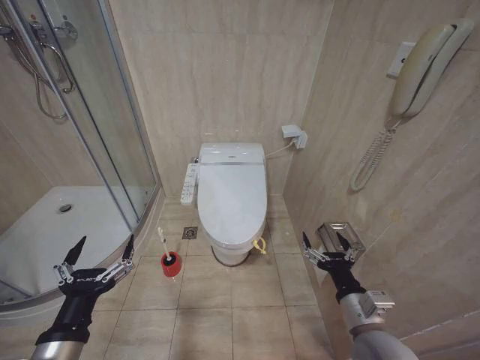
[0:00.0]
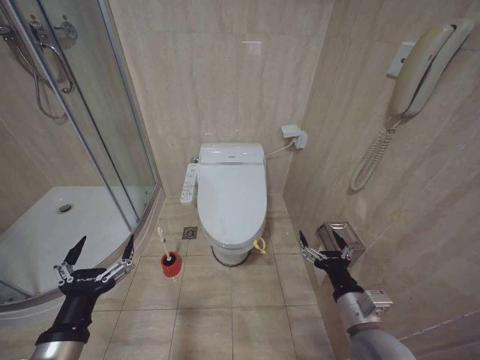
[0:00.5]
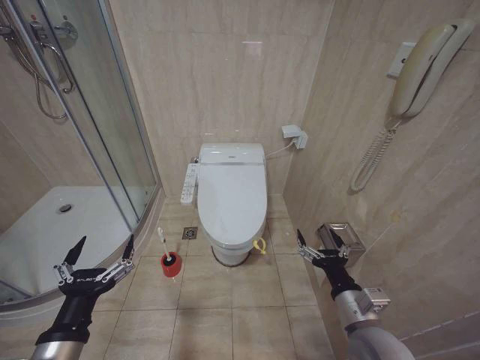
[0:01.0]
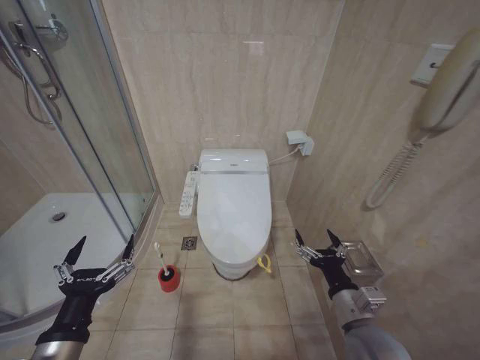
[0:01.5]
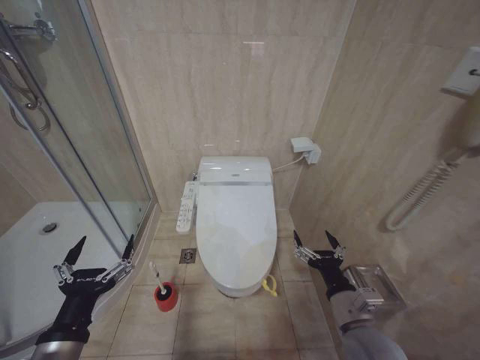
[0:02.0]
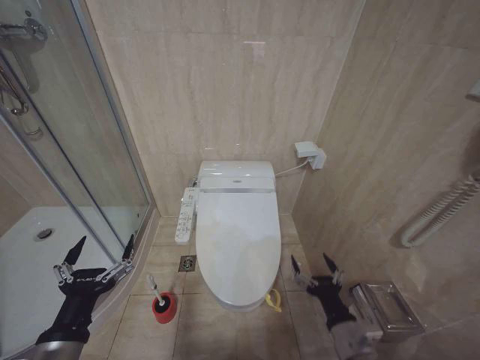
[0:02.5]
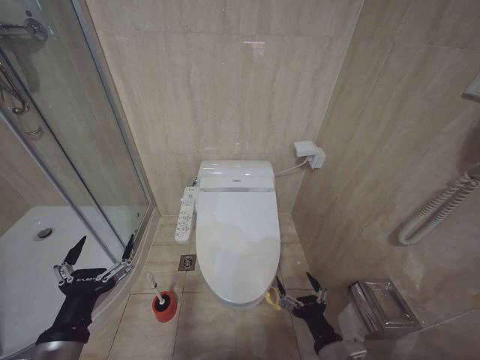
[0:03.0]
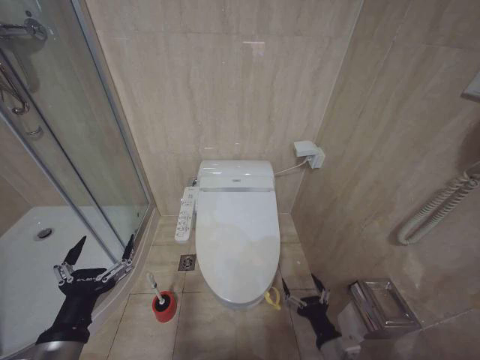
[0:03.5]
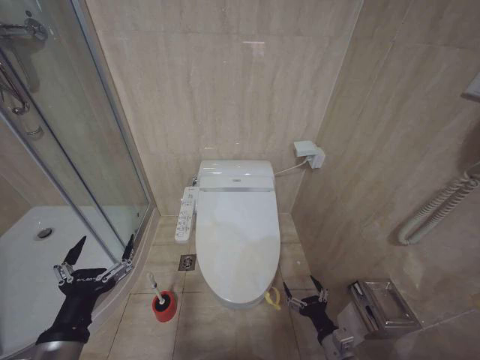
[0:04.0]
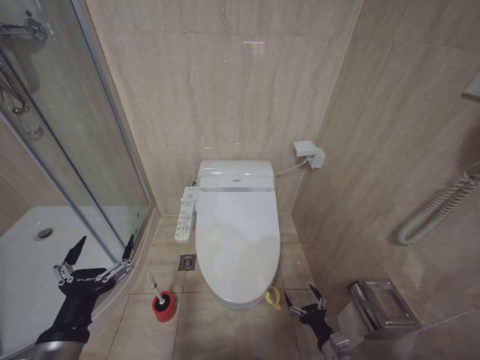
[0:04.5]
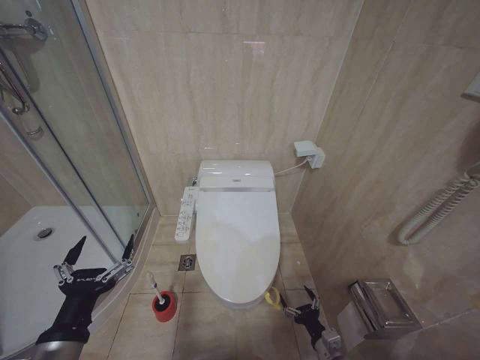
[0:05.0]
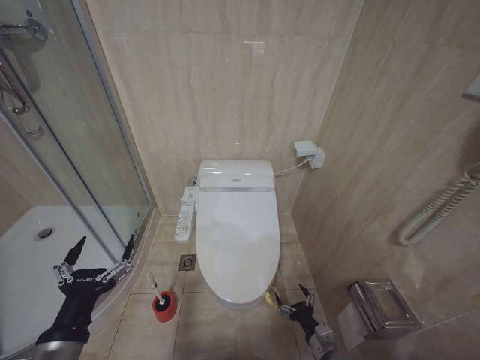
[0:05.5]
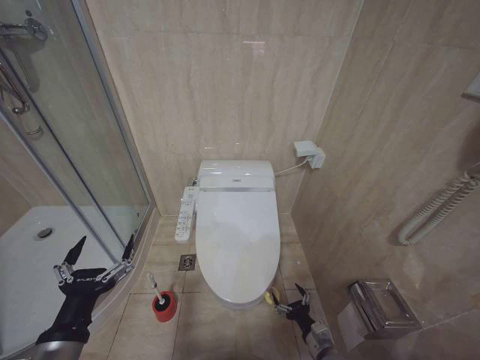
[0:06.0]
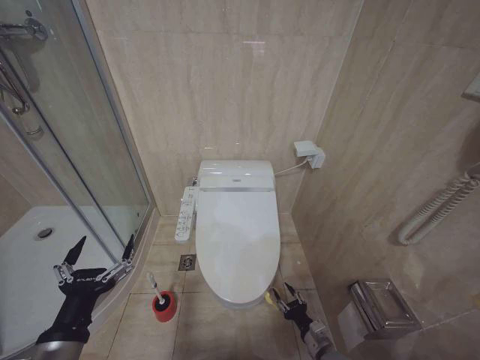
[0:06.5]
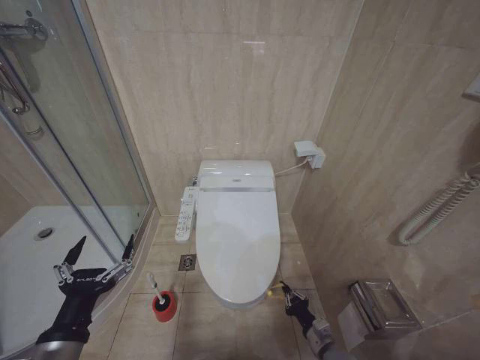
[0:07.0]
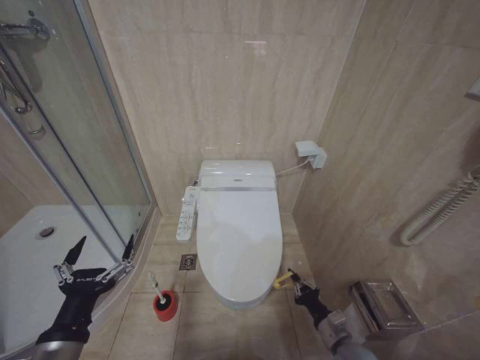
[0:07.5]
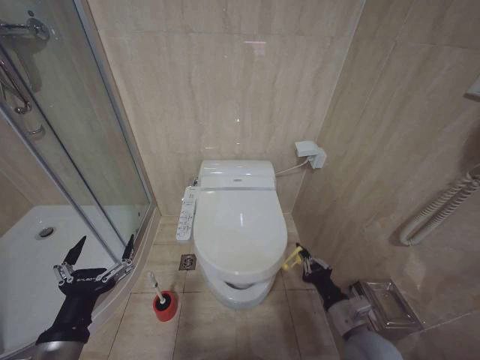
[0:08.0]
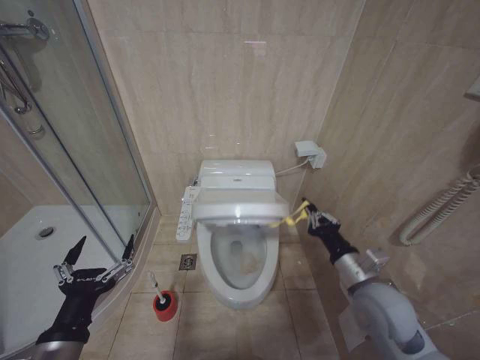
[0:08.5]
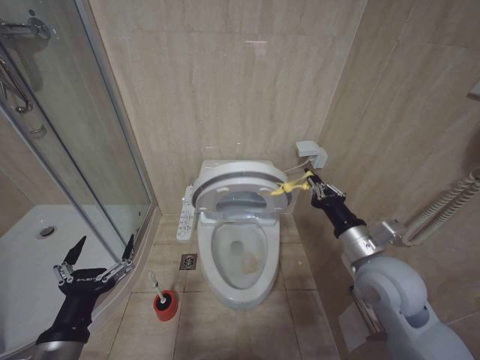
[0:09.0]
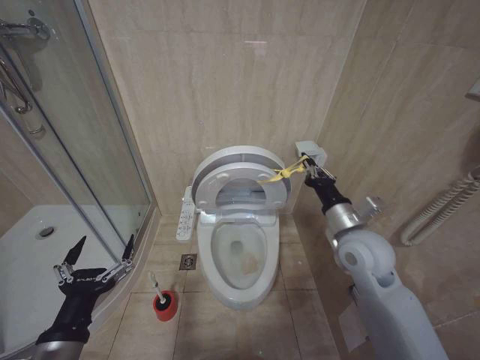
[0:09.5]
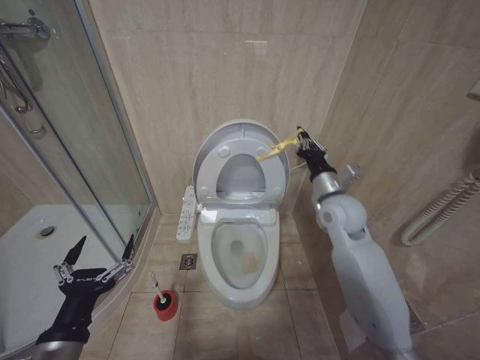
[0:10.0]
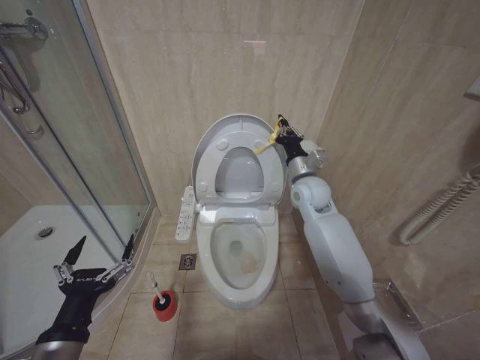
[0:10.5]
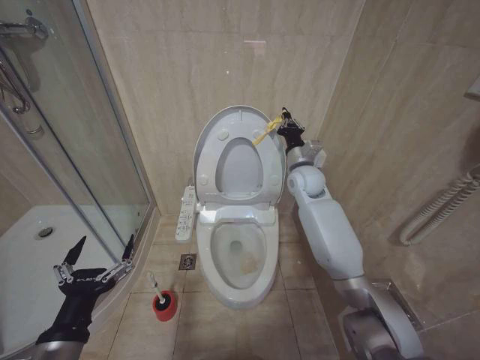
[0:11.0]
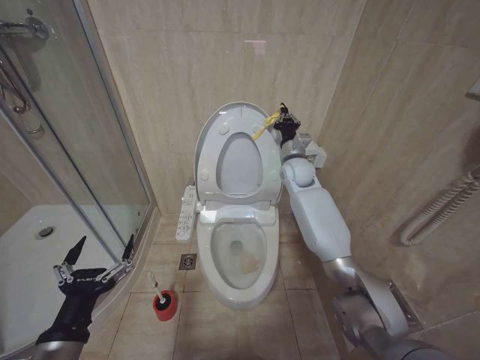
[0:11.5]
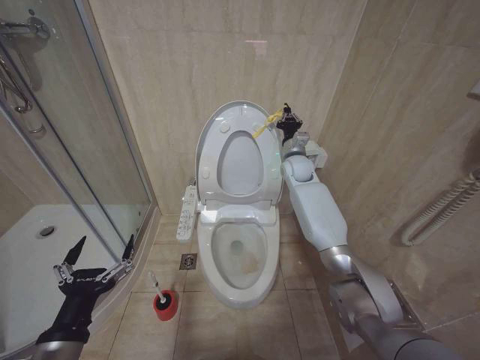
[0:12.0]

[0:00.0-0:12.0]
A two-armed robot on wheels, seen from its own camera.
Task of the whole recording: Open the toilet lid, clean the toilet bowl with a toilet brush, close the toilet lid, and flush.
0:02.0 to 0:04.0: The right gripper travels downward by approximately 15 cm.
0:04.0 to 0:06.0: The right gripper moves downward, approximately 5 cm.
0:06.0 to 0:08.0: The right gripper goes about 15 cm upward, and closes.
0:08.0 to 0:10.0: The right gripper is displaced upward and forward by roughly 30 cm.
0:10.0 to 0:12.0: The right gripper moves forward, roughly 20 cm.

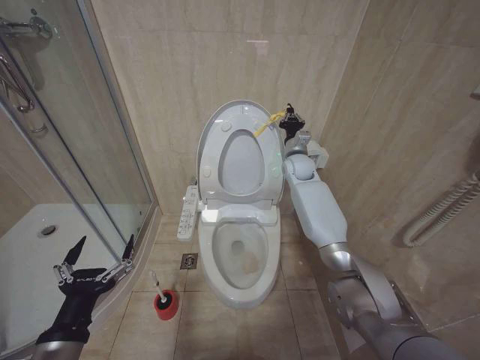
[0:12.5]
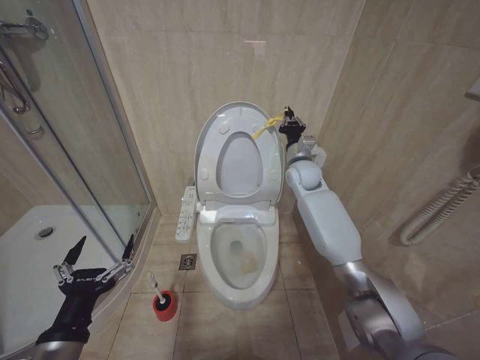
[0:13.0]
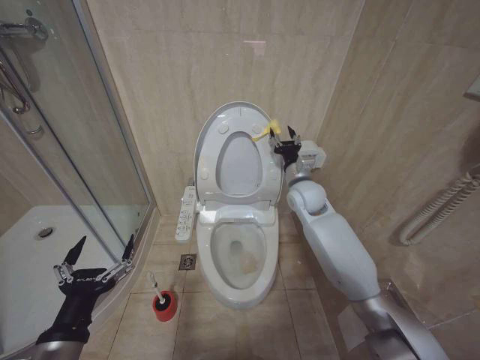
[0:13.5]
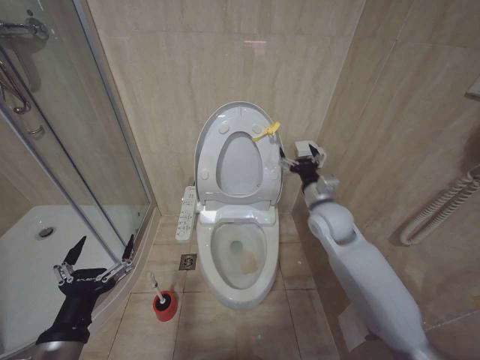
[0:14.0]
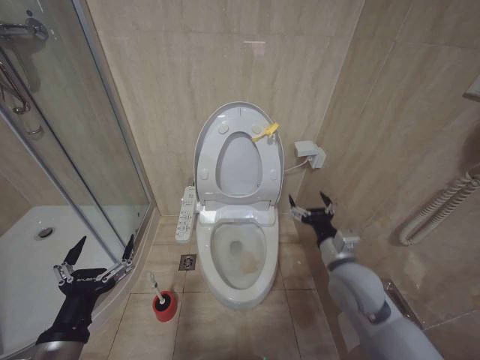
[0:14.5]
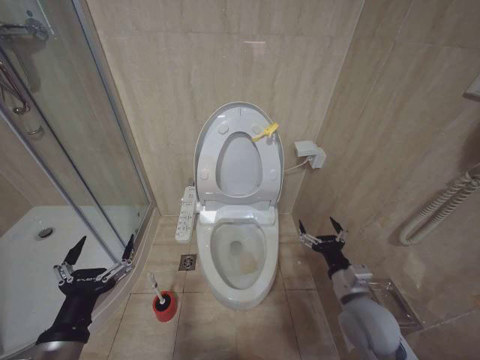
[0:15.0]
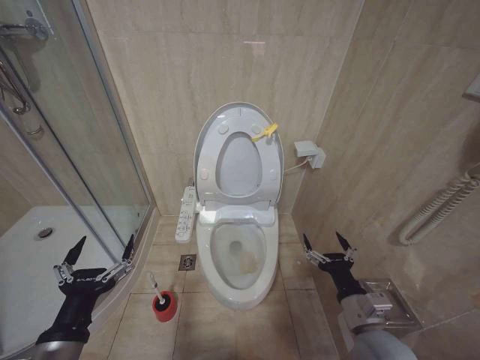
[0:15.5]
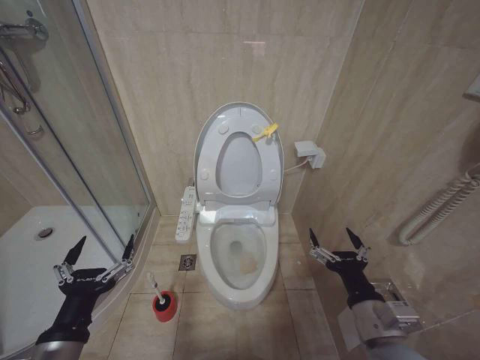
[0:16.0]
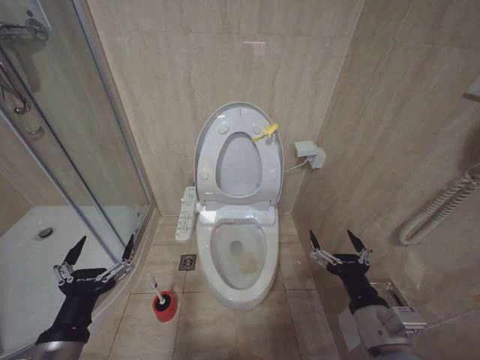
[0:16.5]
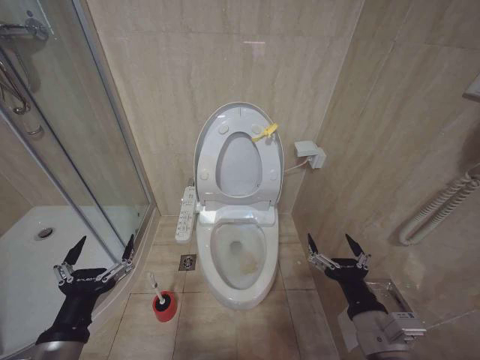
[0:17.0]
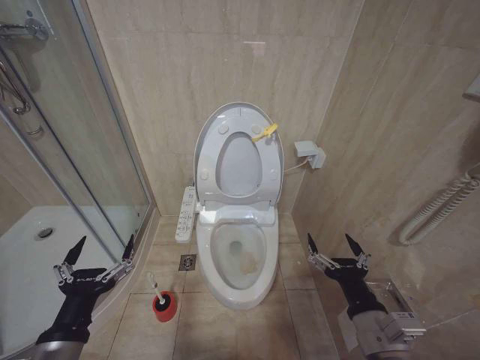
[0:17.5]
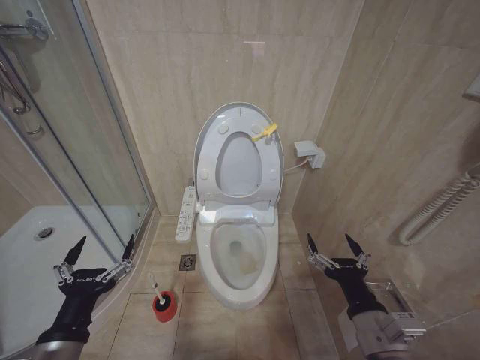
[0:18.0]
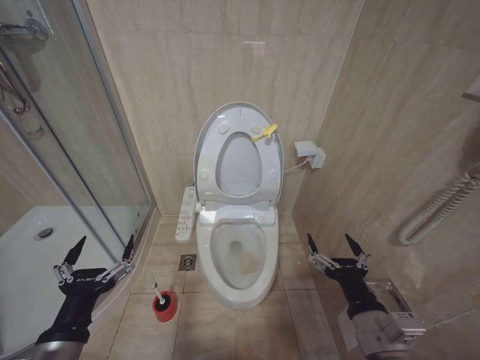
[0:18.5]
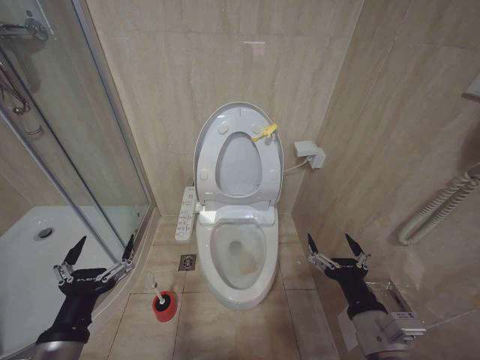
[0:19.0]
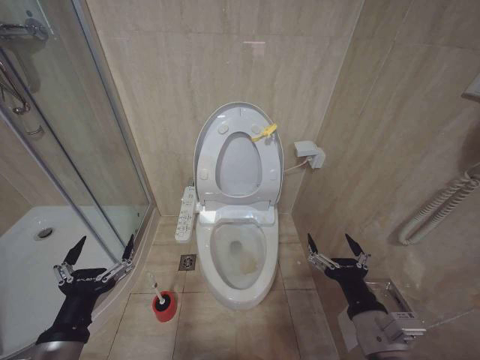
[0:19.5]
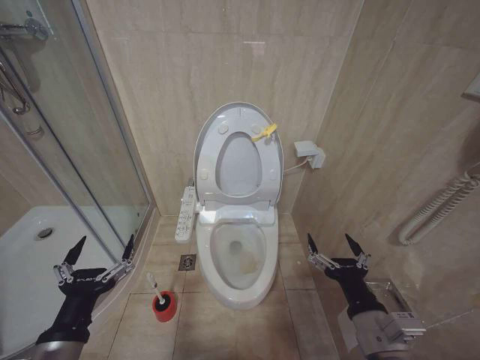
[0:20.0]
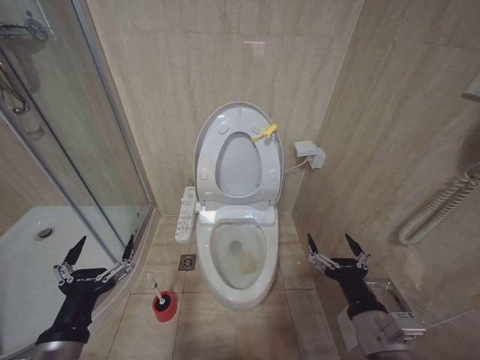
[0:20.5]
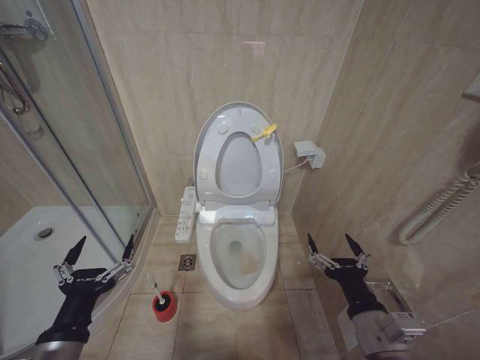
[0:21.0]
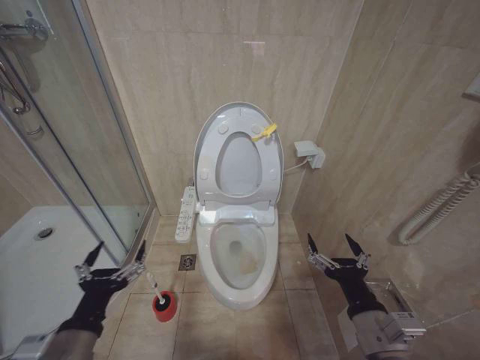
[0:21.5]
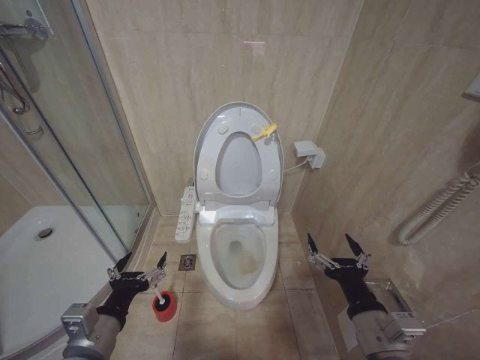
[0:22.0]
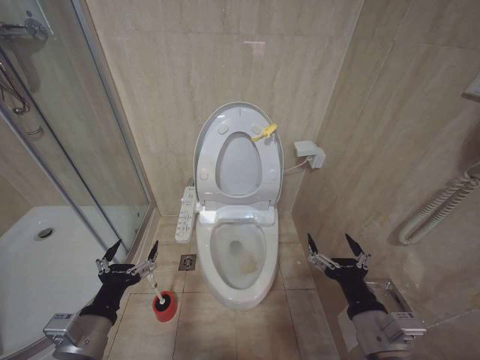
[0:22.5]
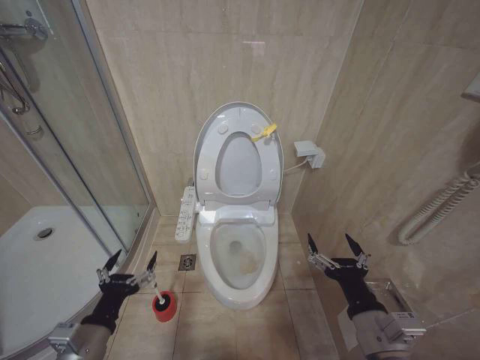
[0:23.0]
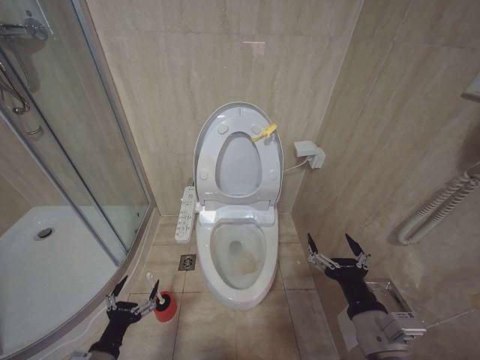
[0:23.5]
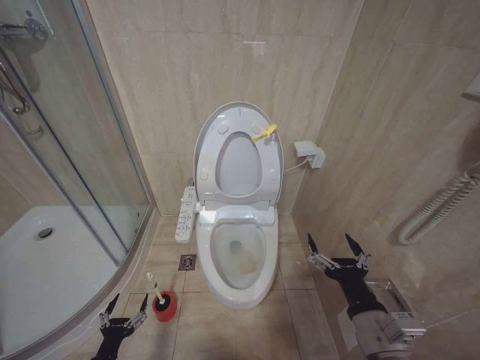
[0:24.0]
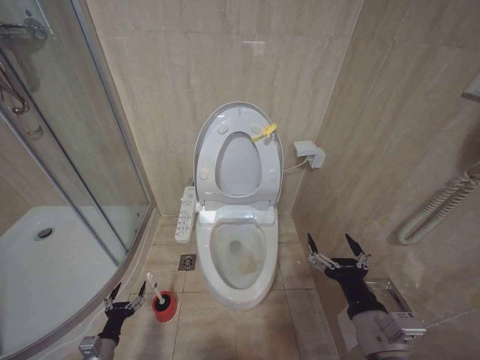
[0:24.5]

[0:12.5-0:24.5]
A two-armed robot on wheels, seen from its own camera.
Task of the whole recording: Open the toilet lid, clean the toilet bowl with a toilet brush, close the toilet lid, and flush.
0:12.5 to 0:14.5: The right gripper moves backward, approximately 30 cm, and opens up.
0:14.5 to 0:16.5: The right gripper shifts approximately 15 cm backward.
0:16.5 to 0:20.5: Both grippers stay about where they are.
0:20.5 to 0:22.5: The left gripper moves about 5 cm.
0:22.5 to 0:24.5: The left gripper moves downward, approximately 30 cm.

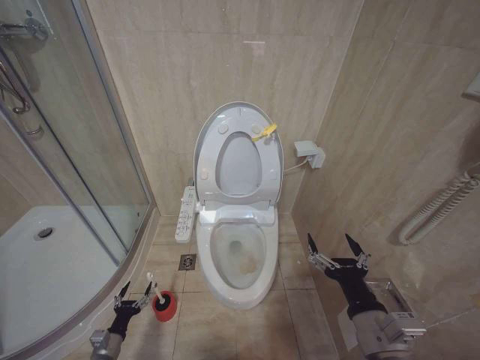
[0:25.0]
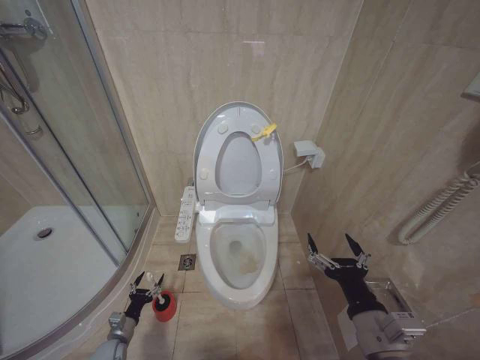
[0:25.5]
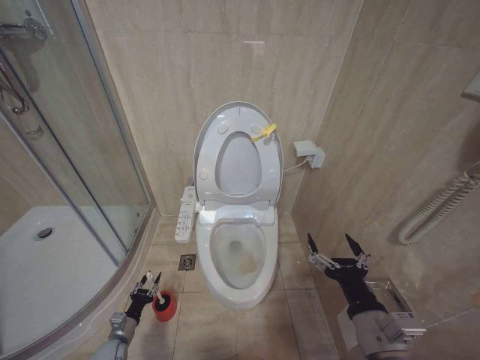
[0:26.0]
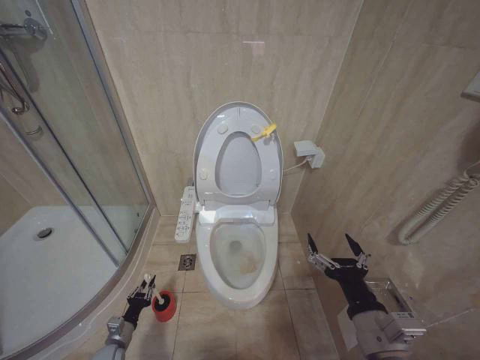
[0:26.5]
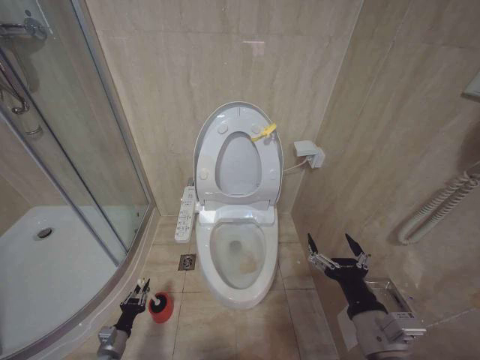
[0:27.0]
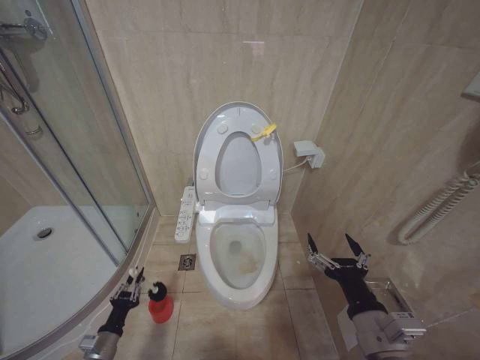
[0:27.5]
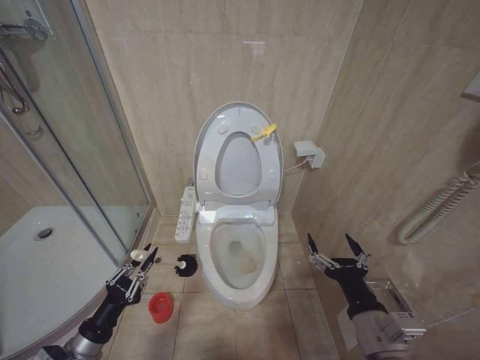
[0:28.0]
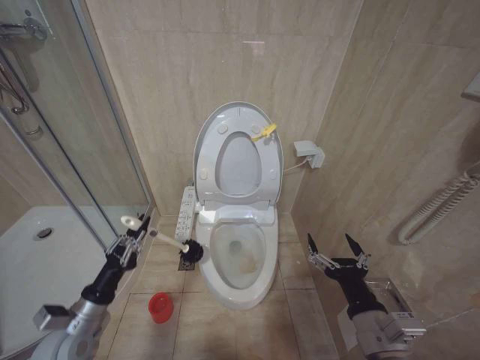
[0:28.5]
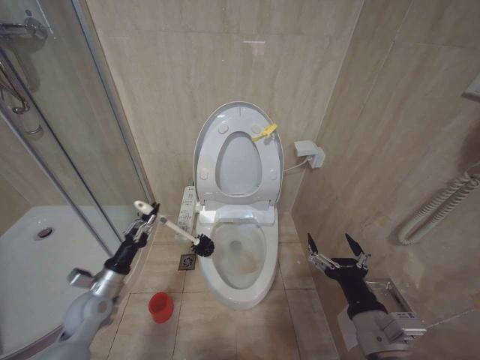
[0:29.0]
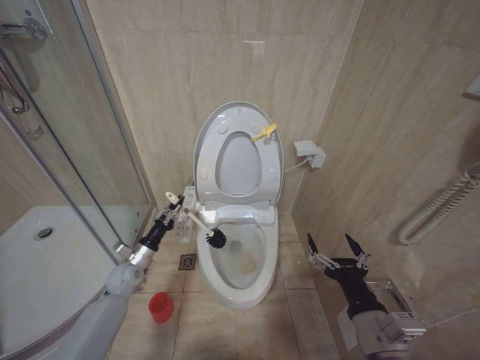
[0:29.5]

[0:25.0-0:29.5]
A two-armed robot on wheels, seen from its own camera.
Task of the whole recording: Open the toilet lid, clean the toilet bowl with a toilet brush, close the toilet lid, and flush.
0:25.0 to 0:27.0: The left gripper closes up.
0:27.0 to 0:29.5: The left gripper shifts roughly 25 cm upward and forward.
